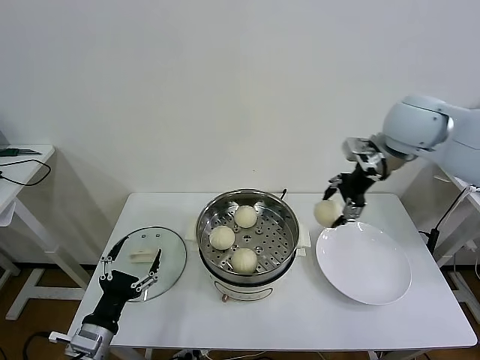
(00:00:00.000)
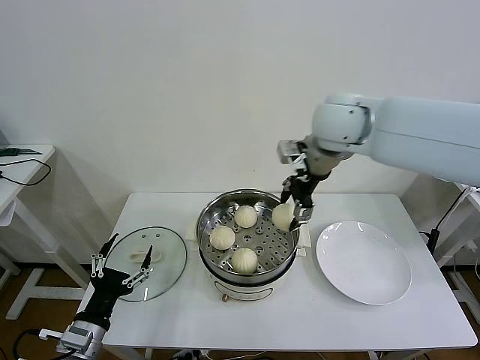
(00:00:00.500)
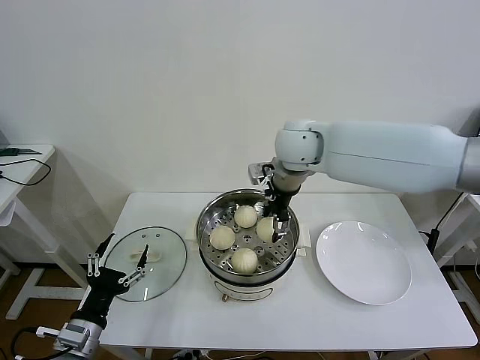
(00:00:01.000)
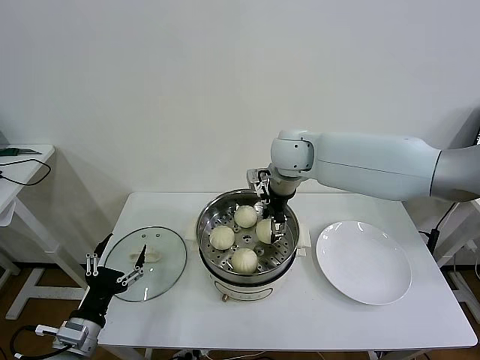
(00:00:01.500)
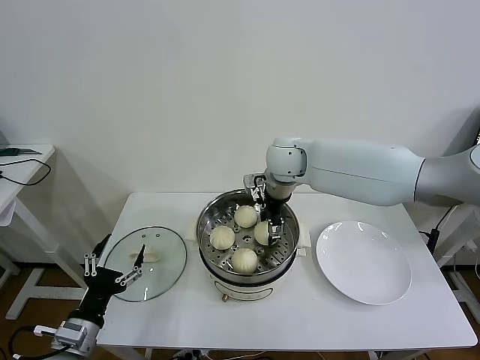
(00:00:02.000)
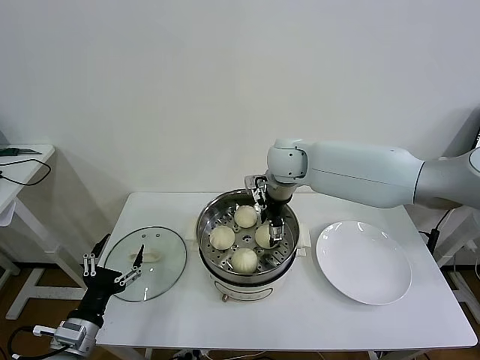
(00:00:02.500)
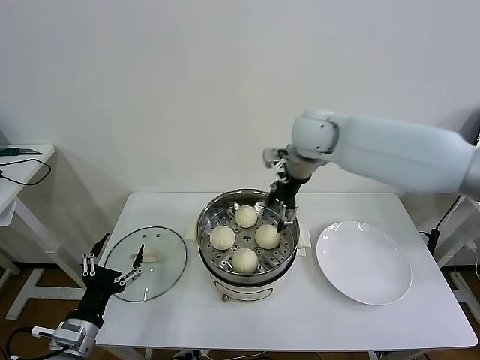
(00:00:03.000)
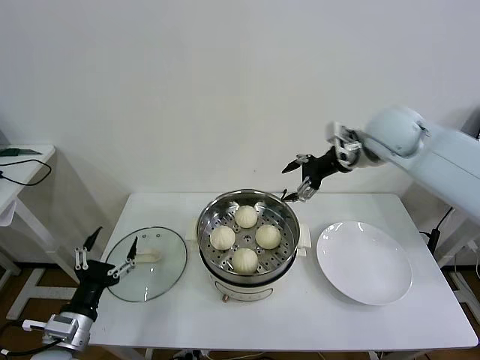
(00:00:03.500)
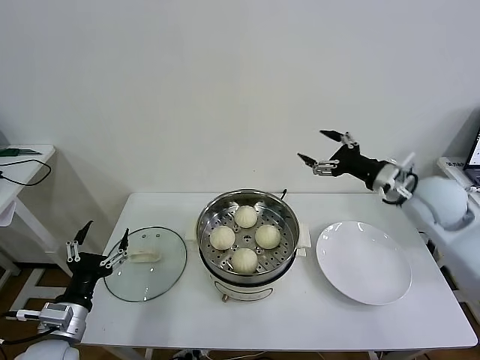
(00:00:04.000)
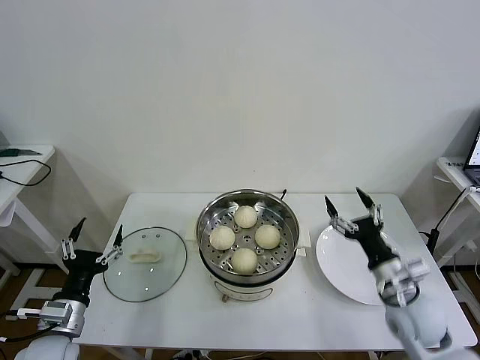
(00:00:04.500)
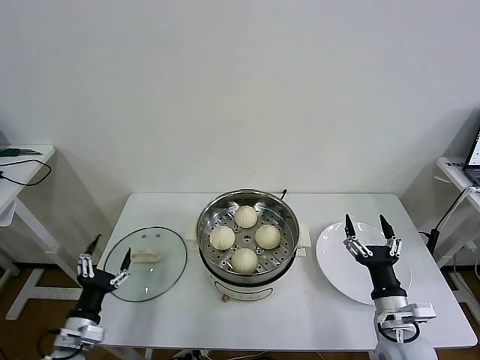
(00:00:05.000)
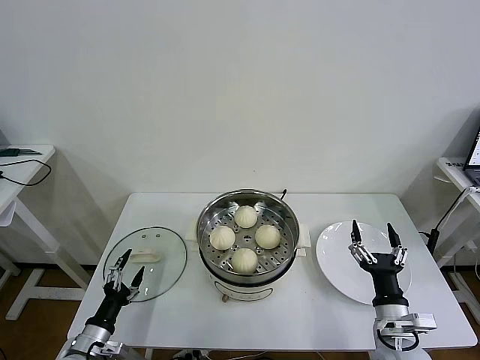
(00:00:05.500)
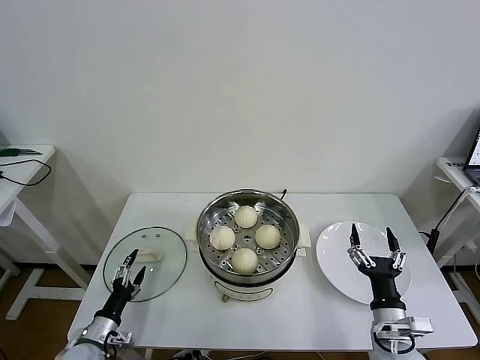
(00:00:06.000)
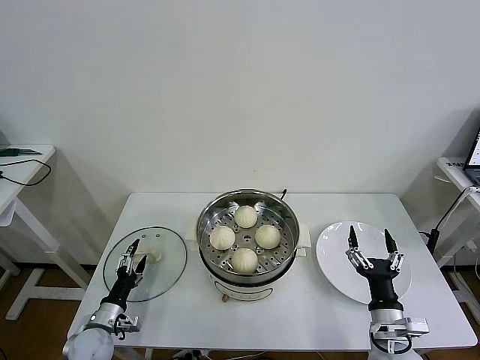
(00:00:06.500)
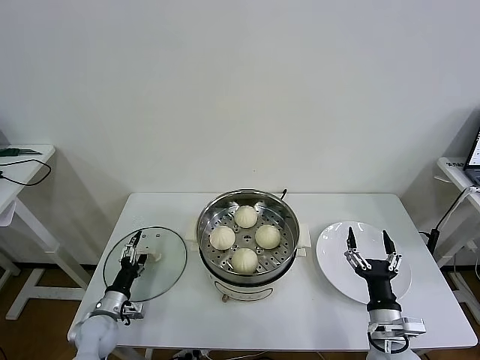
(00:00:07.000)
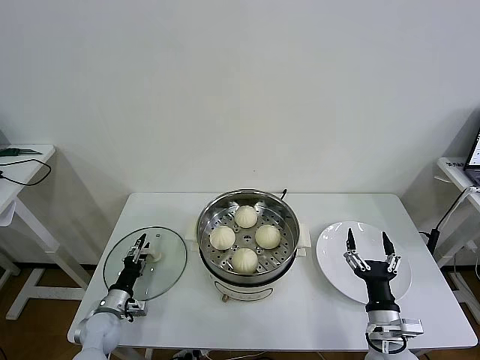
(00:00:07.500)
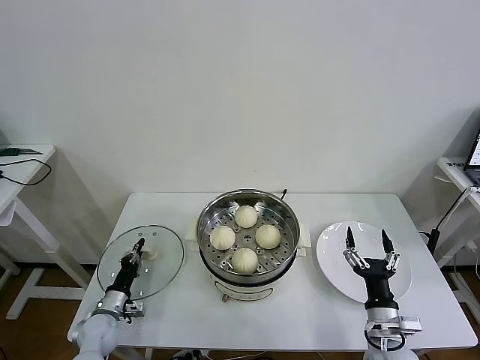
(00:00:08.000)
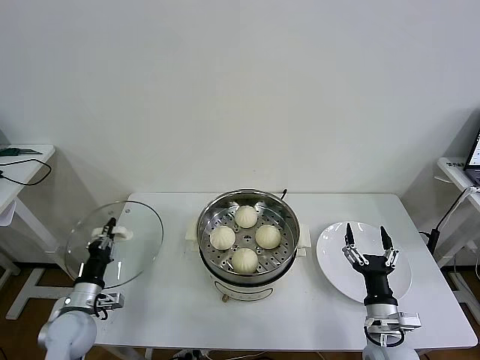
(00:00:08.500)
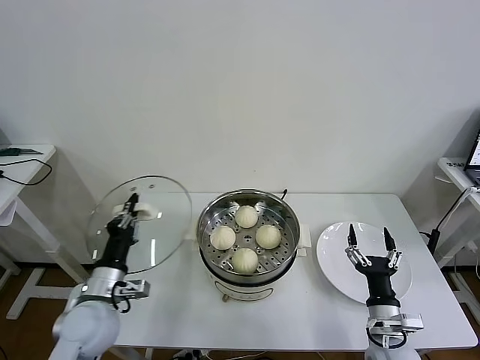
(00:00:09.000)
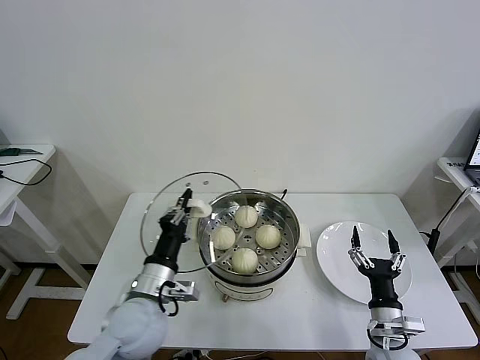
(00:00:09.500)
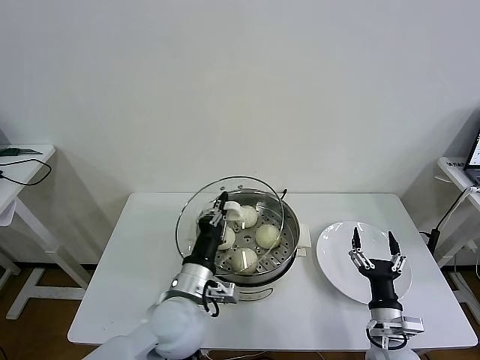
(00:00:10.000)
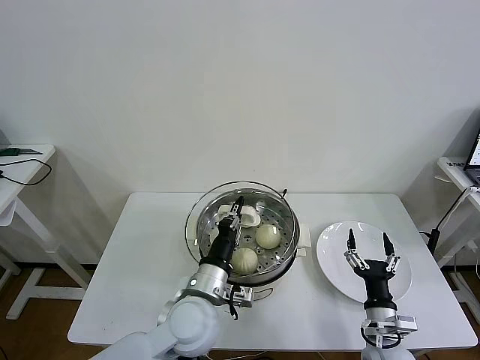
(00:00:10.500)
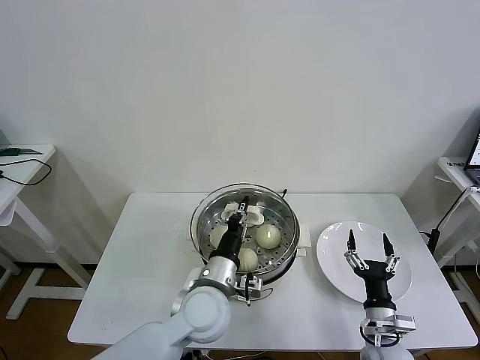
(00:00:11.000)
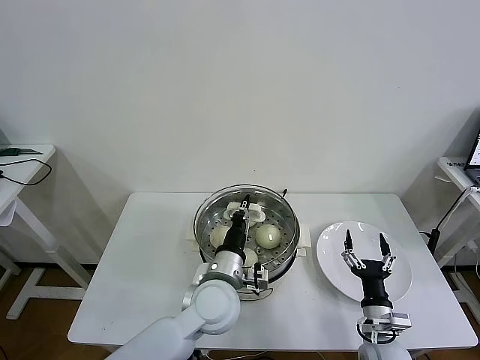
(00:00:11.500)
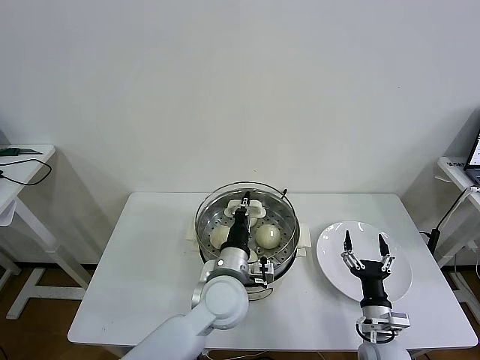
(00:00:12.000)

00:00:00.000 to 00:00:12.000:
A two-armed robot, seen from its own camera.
Task of the whole recording: take steamed baozi put them in steamer then cover it.
Step, 00:00:00.000 to 00:00:02.500: Place the baozi on the steamer with right gripper.
Step, 00:00:03.000 to 00:00:08.000: Grasp the pot lid with left gripper.
00:00:00.000 to 00:00:02.000: The right gripper moves to the left and downward, about 25 cm.
00:00:02.000 to 00:00:04.000: The right gripper shifts approximately 30 cm to the right and backward, and opens up.
00:00:04.000 to 00:00:06.000: The right gripper heads downward and backward, covering approximately 30 cm. The left gripper heads downward, covering some 15 cm.
00:00:06.000 to 00:00:08.000: The left gripper moves forward, roughly 10 cm, and closes its fingers.
00:00:08.000 to 00:00:10.000: The left gripper moves to the right and upward, about 35 cm.
00:00:10.000 to 00:00:12.000: The left gripper travels to the right and forward by about 10 cm.

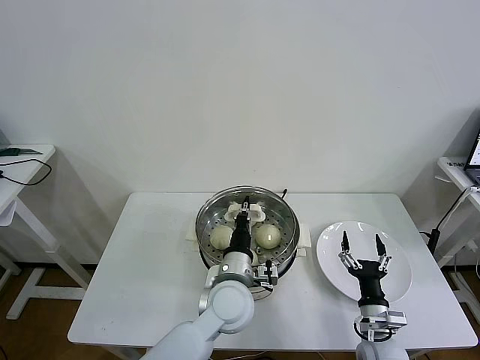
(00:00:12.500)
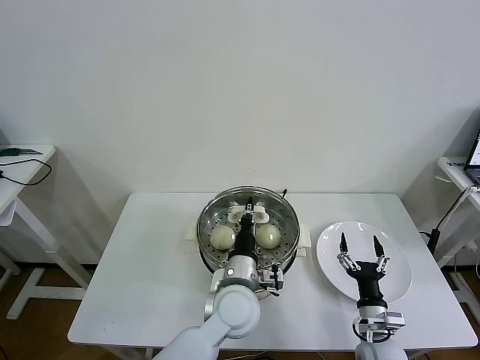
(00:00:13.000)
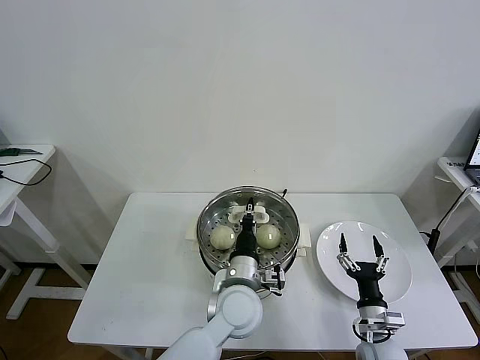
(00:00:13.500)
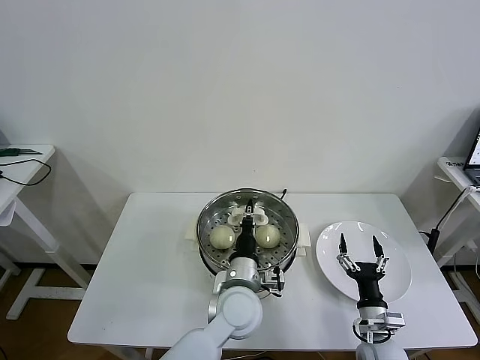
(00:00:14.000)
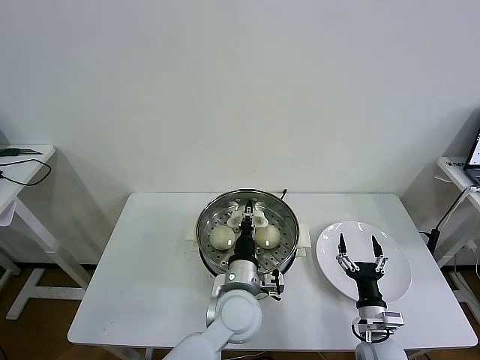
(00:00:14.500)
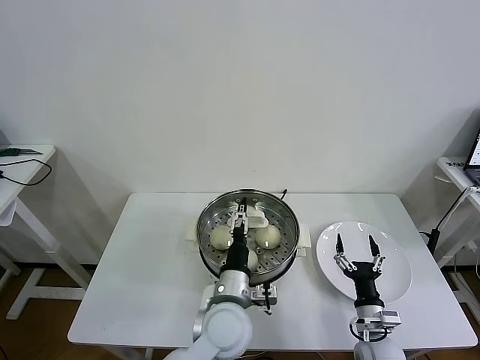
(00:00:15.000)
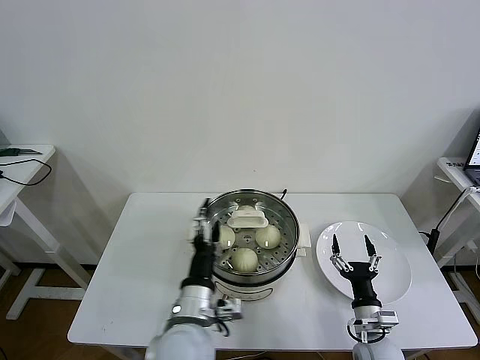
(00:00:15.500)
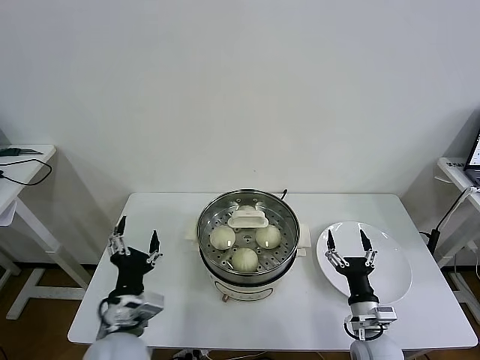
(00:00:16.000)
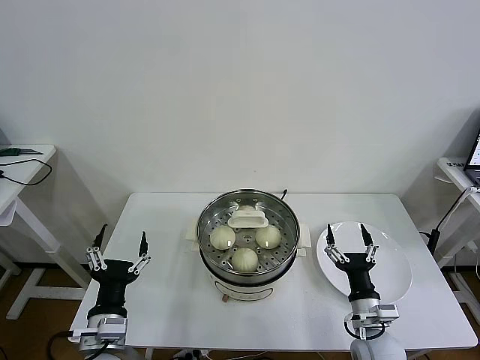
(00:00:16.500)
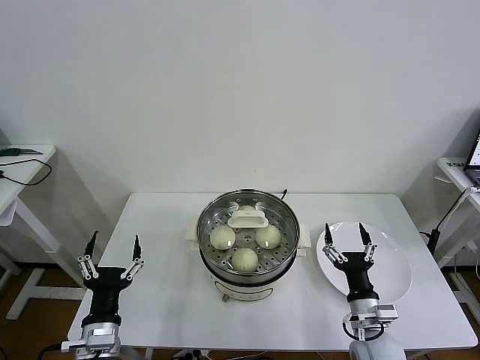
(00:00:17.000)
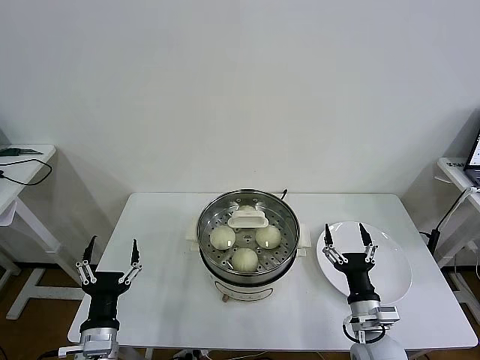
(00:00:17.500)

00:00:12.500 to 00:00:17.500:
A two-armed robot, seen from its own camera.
Task of the whole recording: take steamed baozi put them in steamer then cover it.
Step, 00:00:12.500 to 00:00:15.000: Place the pot lid on the steamer with left gripper.
00:00:12.500 to 00:00:15.000: The left gripper opens up.
00:00:15.000 to 00:00:17.500: The right gripper heads upward, covering approximately 5 cm, while the left gripper shifts approximately 25 cm to the left and backward.
